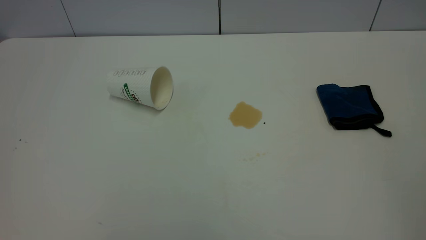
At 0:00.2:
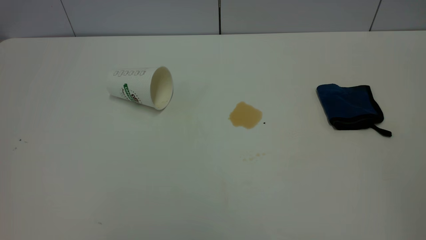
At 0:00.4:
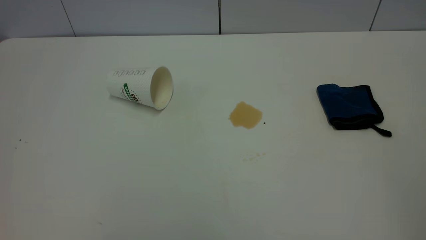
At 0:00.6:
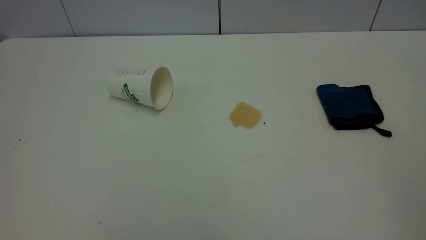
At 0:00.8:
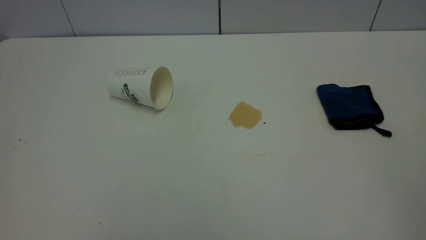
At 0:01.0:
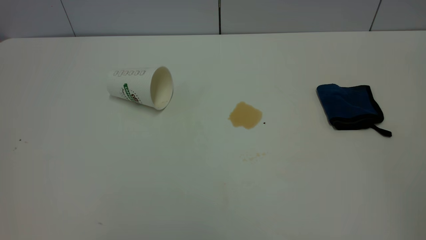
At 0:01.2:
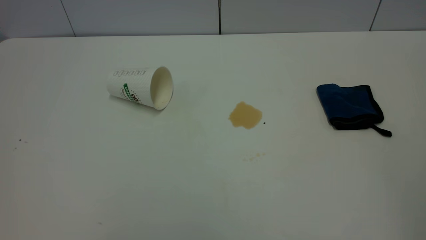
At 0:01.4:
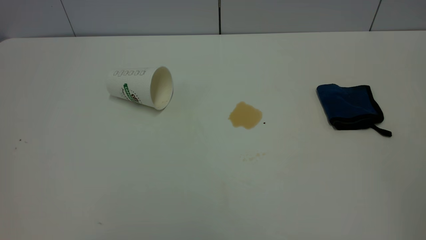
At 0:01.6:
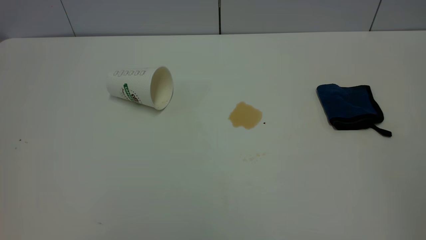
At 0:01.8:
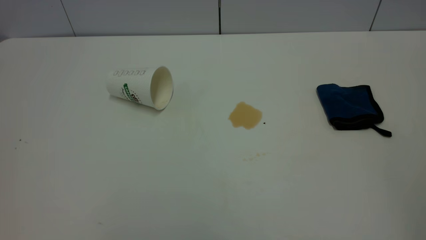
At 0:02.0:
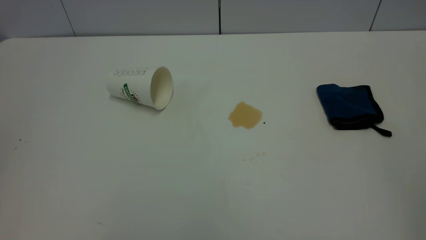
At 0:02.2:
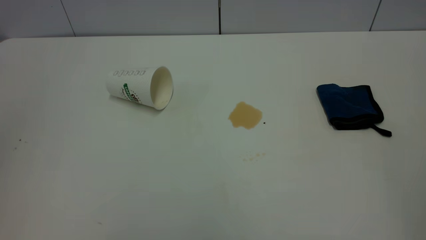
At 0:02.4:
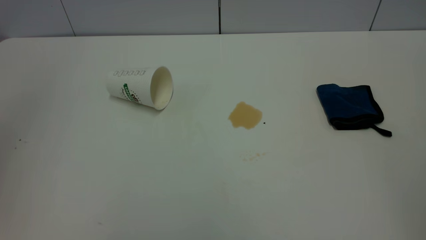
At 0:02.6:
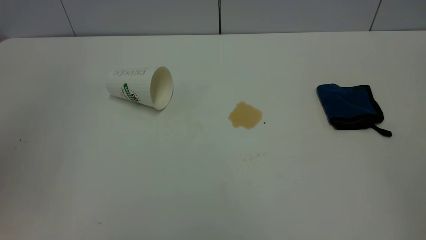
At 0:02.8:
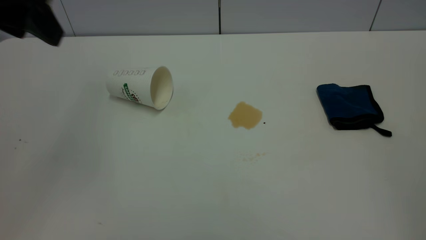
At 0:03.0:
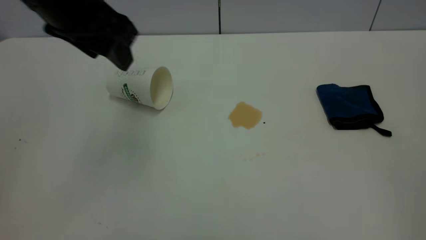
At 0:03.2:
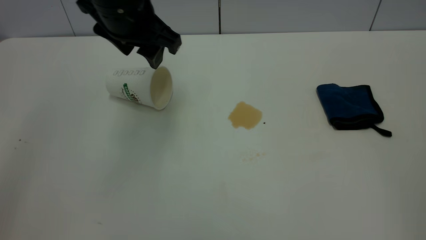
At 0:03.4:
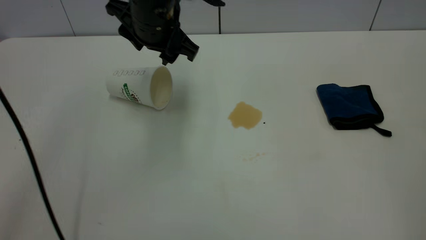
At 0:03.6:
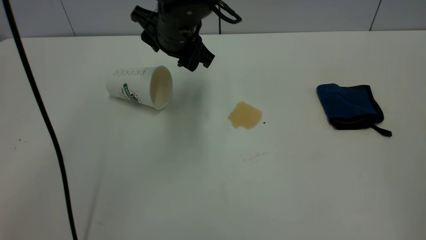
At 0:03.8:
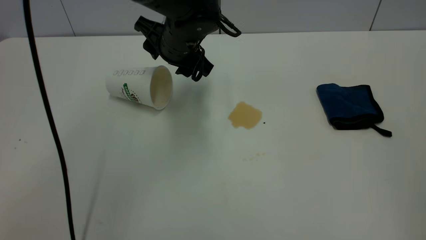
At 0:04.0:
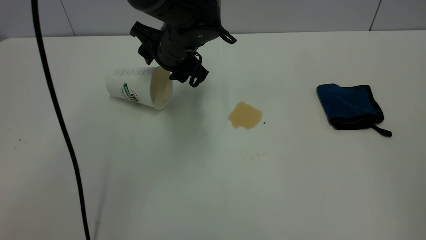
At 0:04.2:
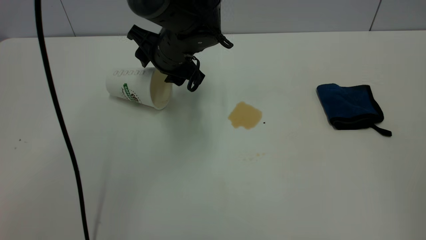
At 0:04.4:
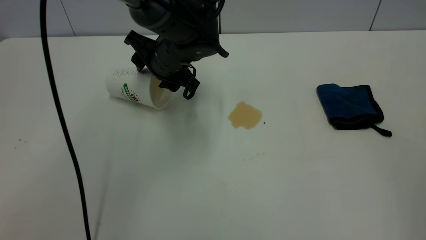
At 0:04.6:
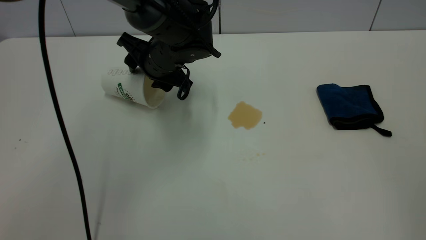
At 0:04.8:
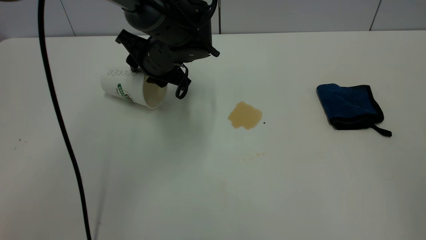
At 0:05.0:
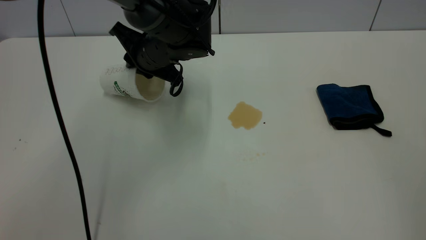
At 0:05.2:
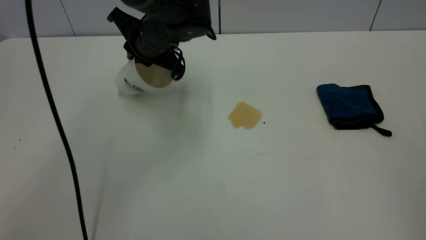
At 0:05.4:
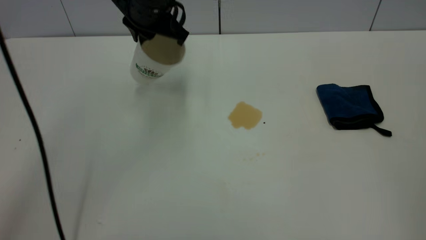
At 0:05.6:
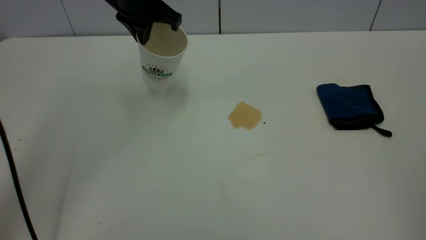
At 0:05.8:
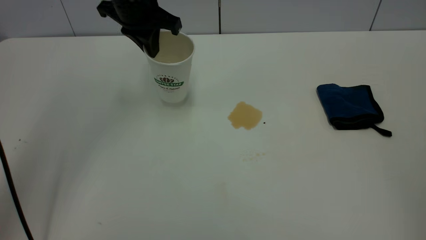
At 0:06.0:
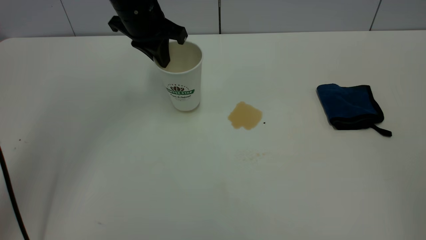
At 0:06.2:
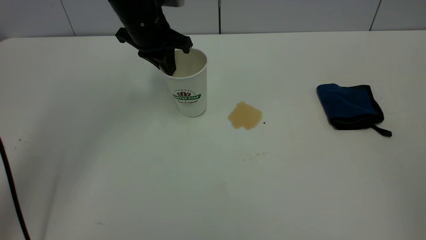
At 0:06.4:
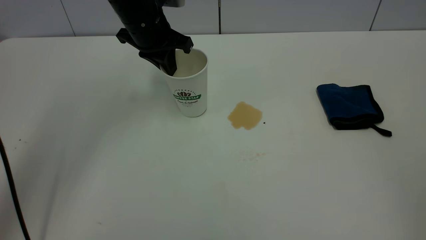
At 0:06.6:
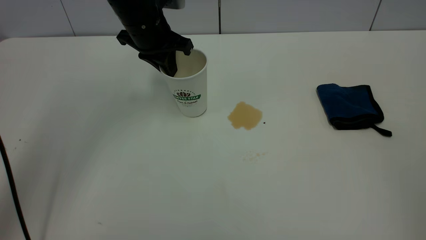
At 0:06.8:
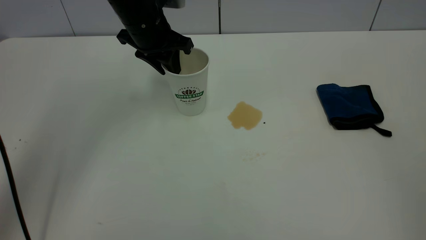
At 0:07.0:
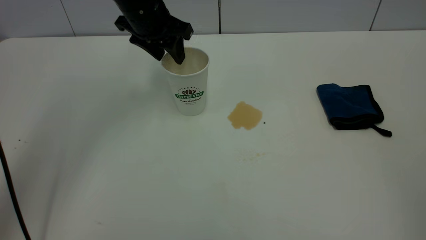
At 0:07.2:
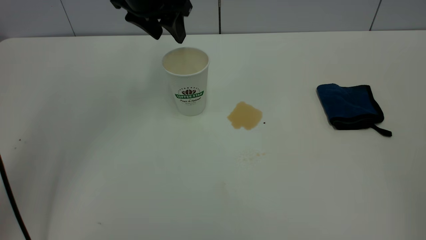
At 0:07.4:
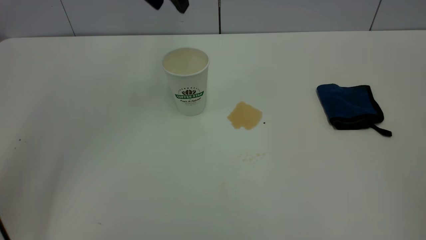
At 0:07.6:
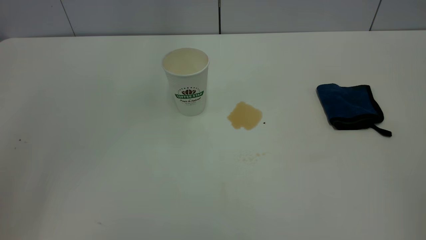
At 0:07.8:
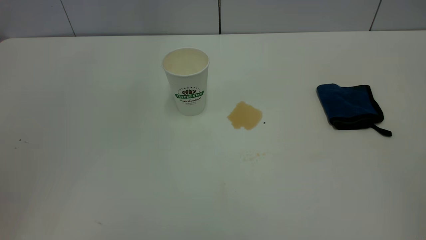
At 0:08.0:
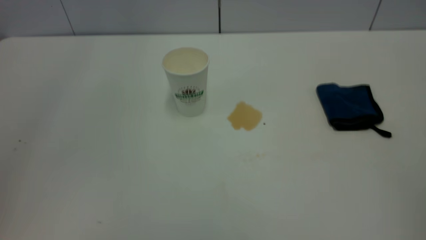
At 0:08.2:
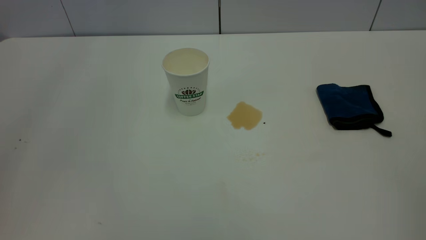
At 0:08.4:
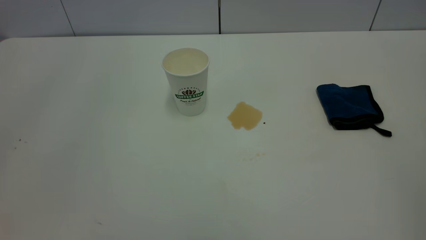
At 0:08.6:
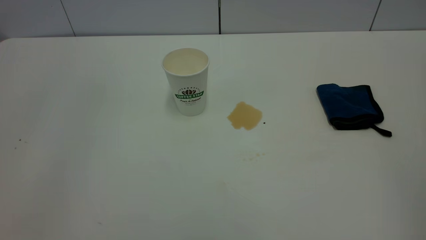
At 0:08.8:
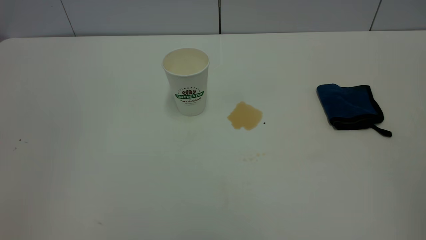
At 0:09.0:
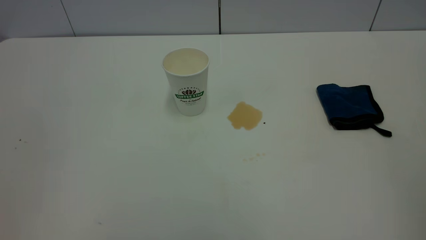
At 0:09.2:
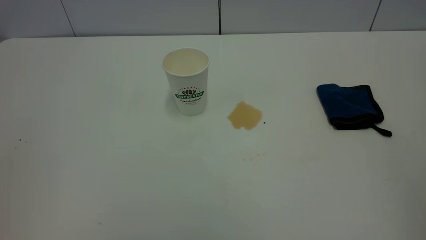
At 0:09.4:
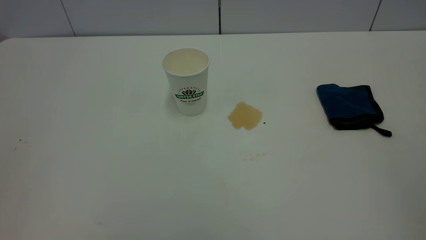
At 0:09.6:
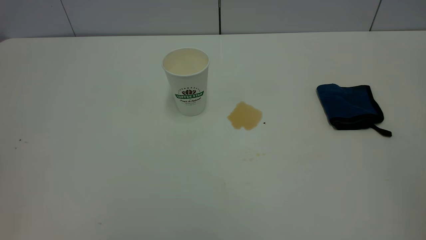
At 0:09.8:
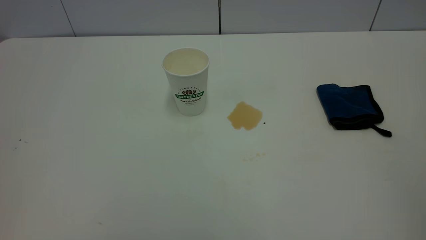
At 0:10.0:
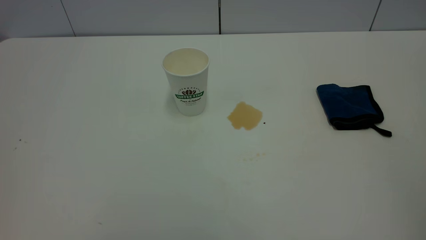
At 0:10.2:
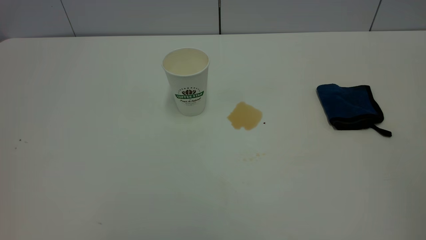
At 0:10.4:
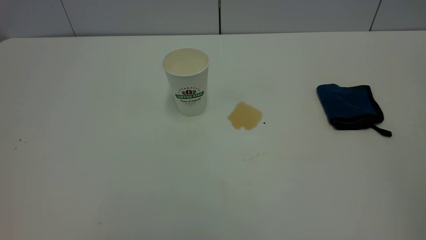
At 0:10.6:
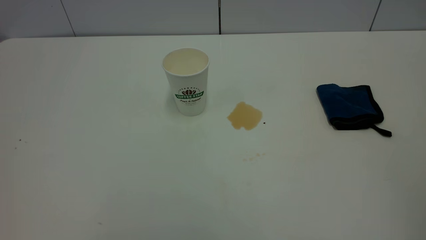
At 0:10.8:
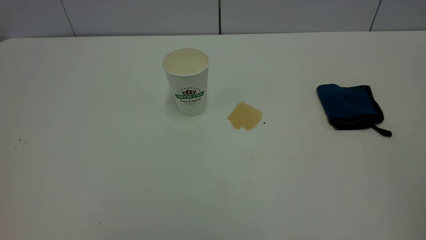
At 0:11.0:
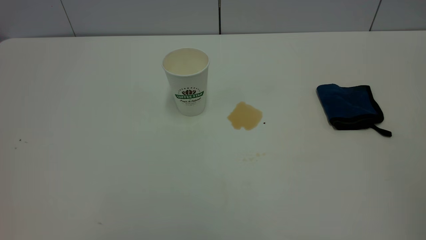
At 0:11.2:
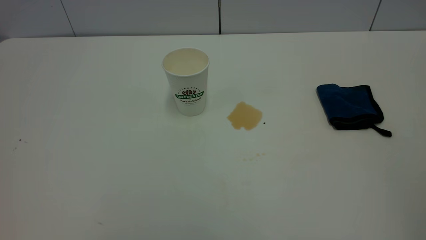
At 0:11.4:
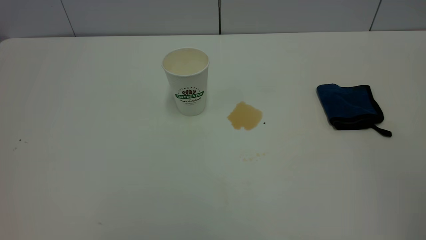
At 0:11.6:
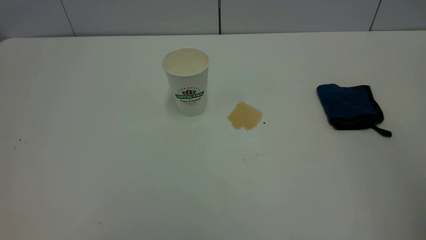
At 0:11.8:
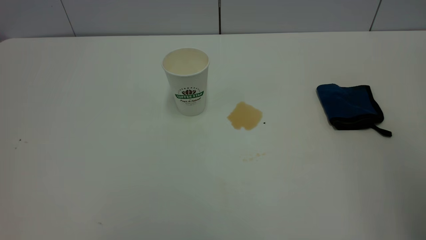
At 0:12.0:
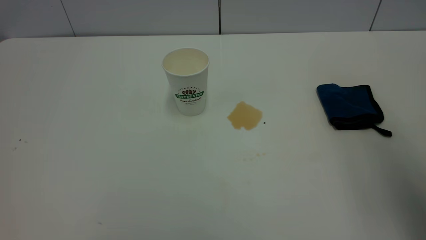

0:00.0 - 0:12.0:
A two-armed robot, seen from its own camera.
Task of the whole recording: the left gripper pick up the fallen cup and place it upright, the right gripper grasp the blue rag and wipe the tea stain on the table, the right gripper put the blue rag back in its original position.
Step, 0:00.0 - 0:07.0: Stand the paper cup upright.
0:00.0 - 0:01.6: Both grippers stay about where they are.
0:01.6 - 0:03.0: The left gripper is displaced forward and to the right by some 35 cm.
0:03.0 - 0:04.4: The left gripper heads downward, forward and to the right, covering approximately 20 cm.
0:04.4 - 0:06.0: The left gripper travels upward and to the left by about 10 cm, and closes up. The right gripper closes up.
0:06.0 - 0:07.6: The left gripper travels upward by about 20 cm, and opens its fingers.
0:10.4 - 0:12.0: The right gripper shifts roughly 20 cm forward, and opens.

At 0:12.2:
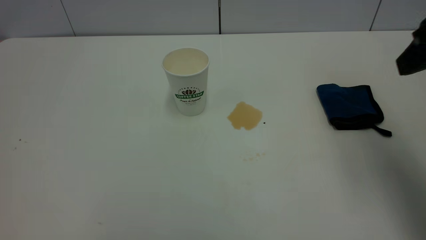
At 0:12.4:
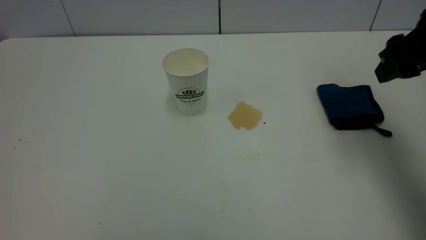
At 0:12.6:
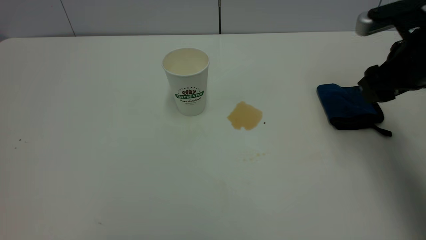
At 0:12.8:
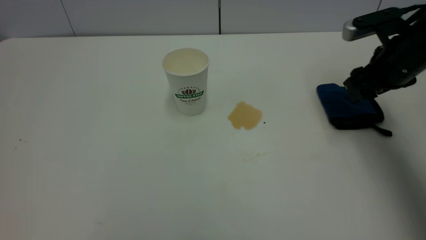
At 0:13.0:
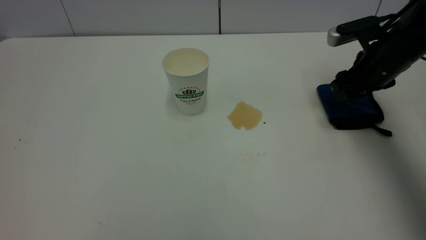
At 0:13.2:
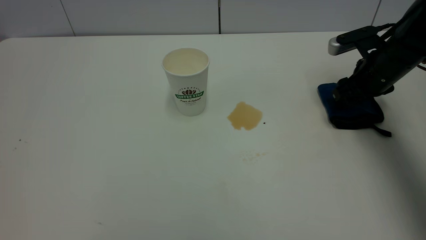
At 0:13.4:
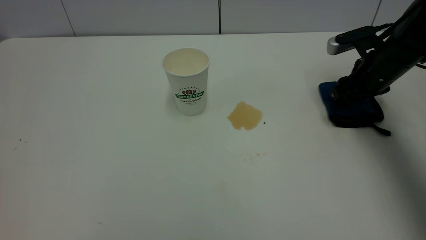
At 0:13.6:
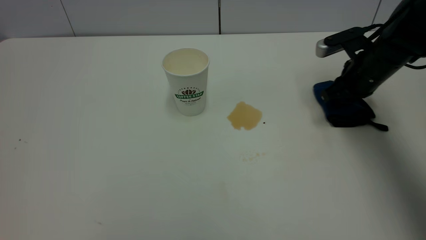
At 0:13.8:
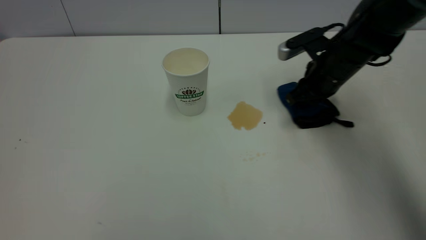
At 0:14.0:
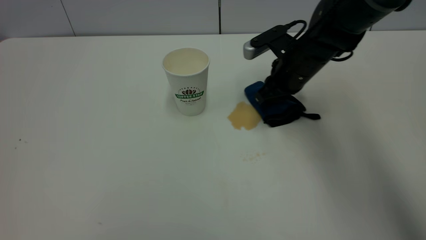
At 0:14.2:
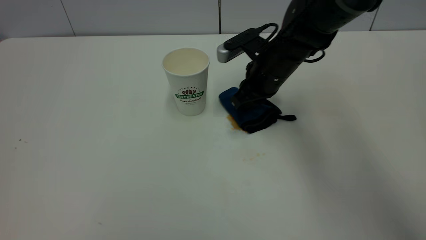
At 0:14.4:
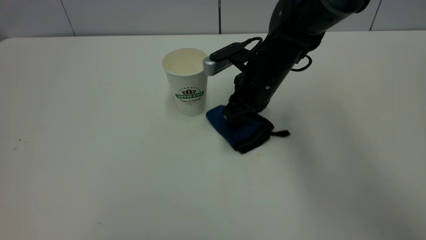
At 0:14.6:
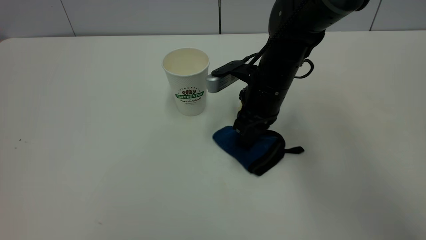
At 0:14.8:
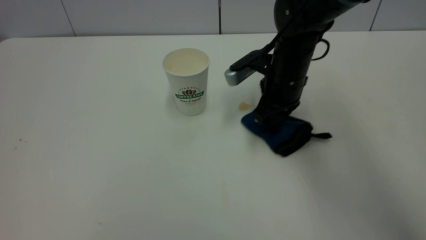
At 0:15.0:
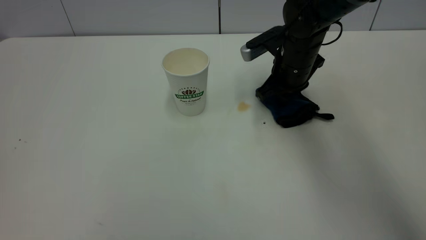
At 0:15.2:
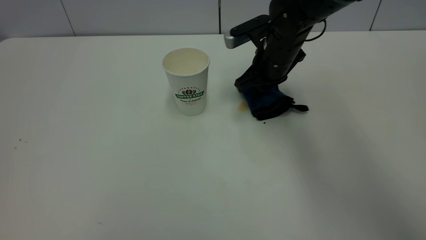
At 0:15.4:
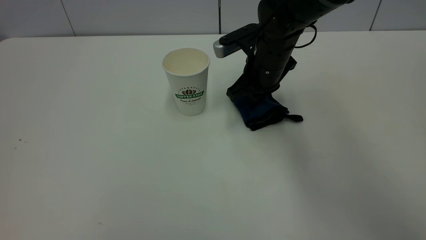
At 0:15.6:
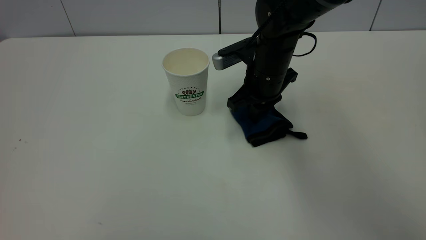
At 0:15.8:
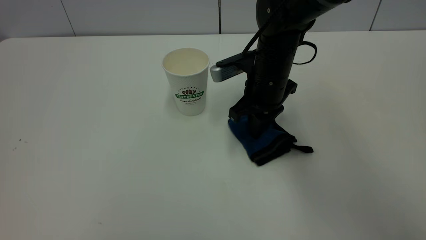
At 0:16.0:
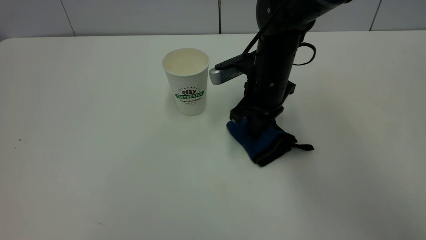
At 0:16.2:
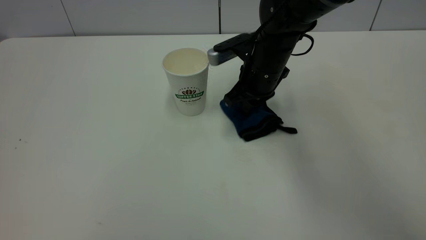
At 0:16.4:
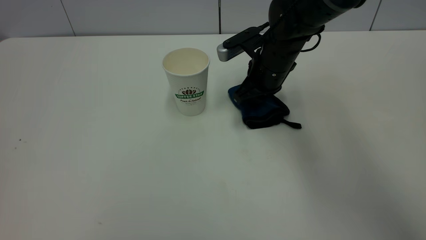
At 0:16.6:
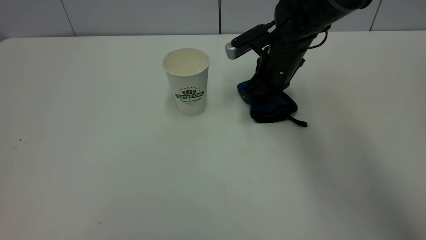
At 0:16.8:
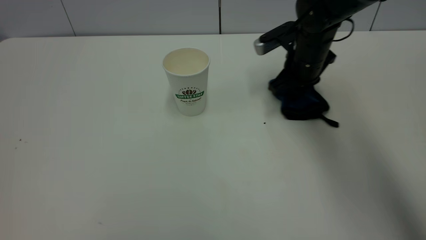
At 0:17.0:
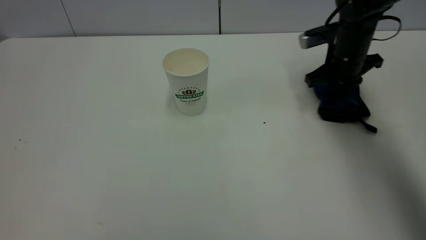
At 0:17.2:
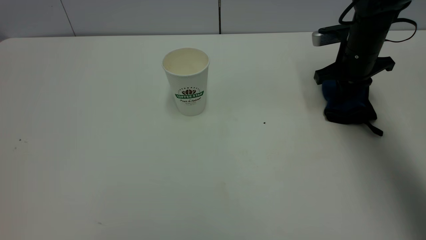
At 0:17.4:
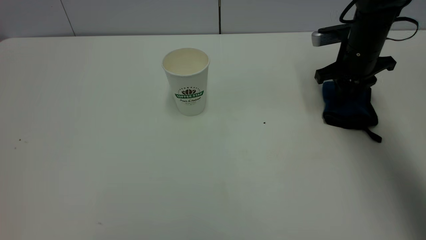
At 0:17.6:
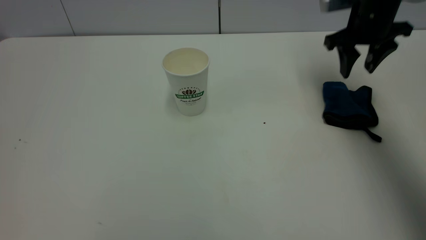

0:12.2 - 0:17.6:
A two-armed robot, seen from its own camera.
Task of the whole recording: the left gripper pick up the fallen cup and place it upright, the right gripper grasp the blue rag and wipe the tea stain on the table, the right gripper put the blue rag back in its original position.
0:12.2 - 0:13.6: The right gripper heads downward and forward, covering some 25 cm, and closes its fingers.
0:13.6 - 0:15.0: The right gripper is displaced to the left by roughly 10 cm.
0:16.2 - 0:17.6: The right gripper shifts about 20 cm to the right and upward, and opens up.
